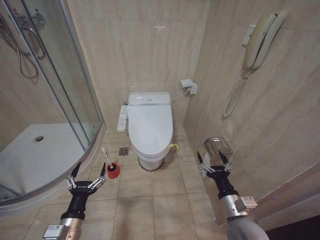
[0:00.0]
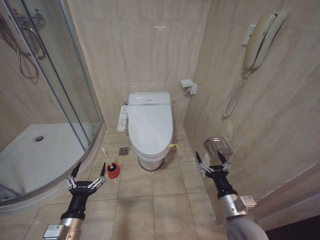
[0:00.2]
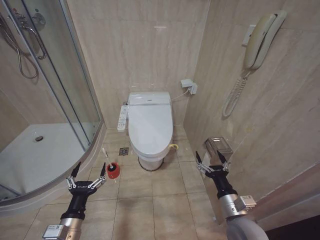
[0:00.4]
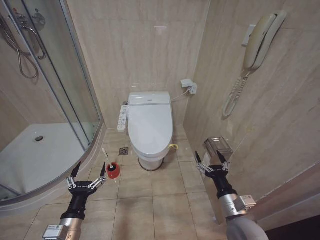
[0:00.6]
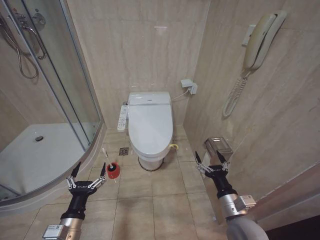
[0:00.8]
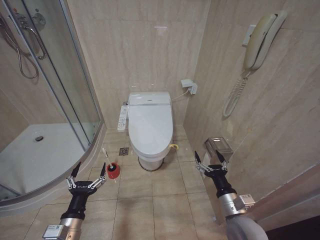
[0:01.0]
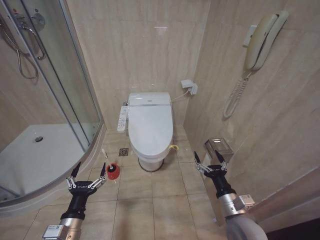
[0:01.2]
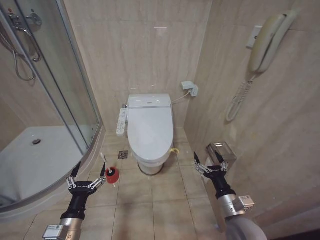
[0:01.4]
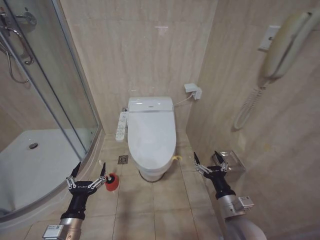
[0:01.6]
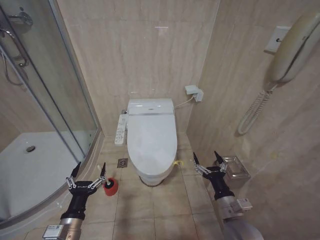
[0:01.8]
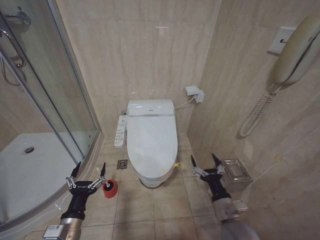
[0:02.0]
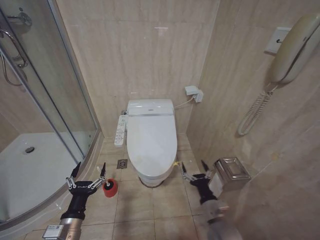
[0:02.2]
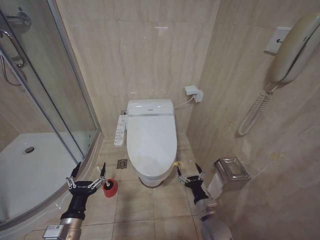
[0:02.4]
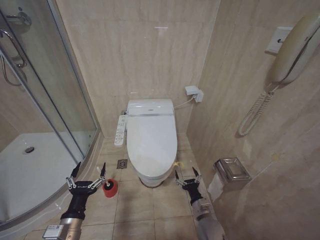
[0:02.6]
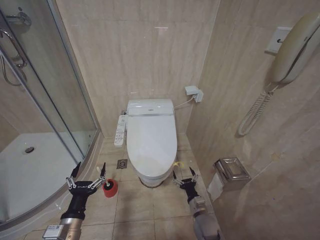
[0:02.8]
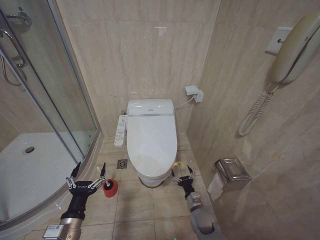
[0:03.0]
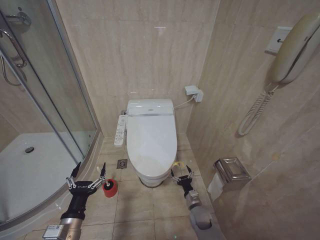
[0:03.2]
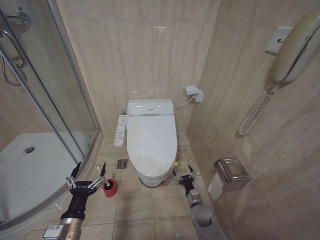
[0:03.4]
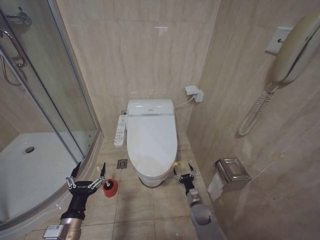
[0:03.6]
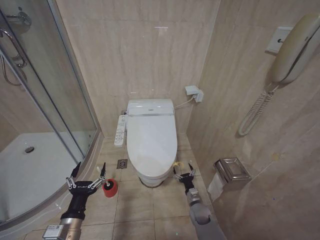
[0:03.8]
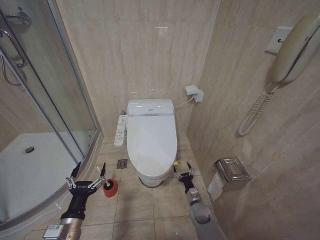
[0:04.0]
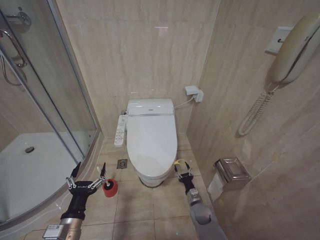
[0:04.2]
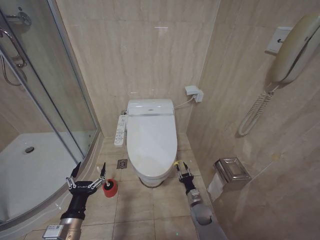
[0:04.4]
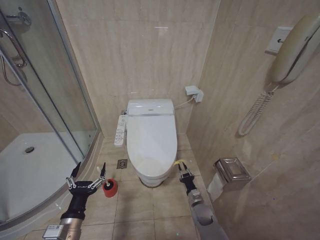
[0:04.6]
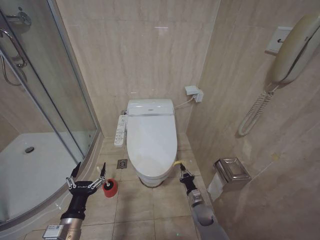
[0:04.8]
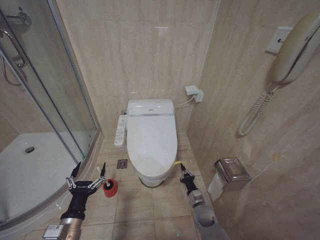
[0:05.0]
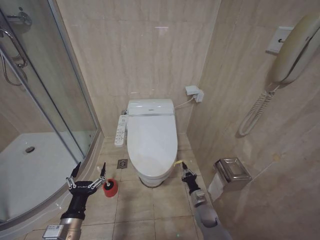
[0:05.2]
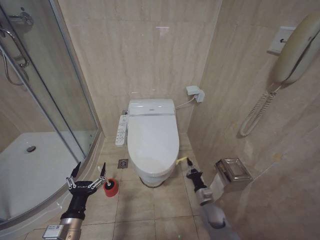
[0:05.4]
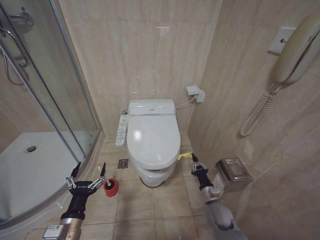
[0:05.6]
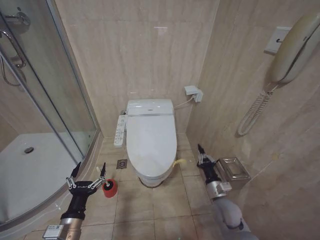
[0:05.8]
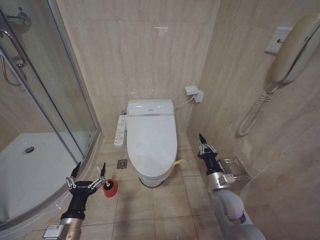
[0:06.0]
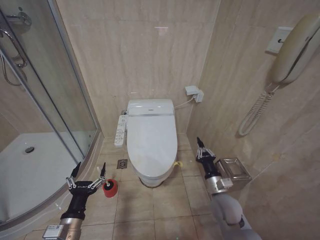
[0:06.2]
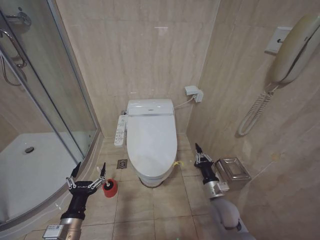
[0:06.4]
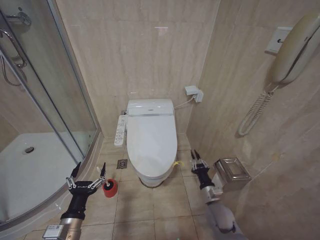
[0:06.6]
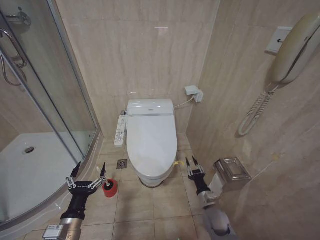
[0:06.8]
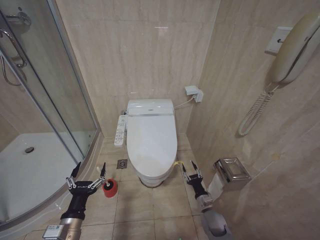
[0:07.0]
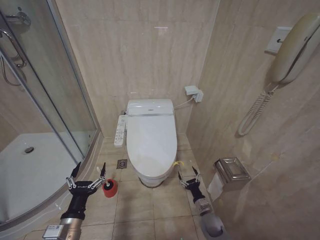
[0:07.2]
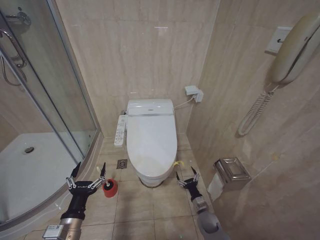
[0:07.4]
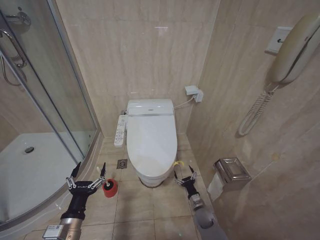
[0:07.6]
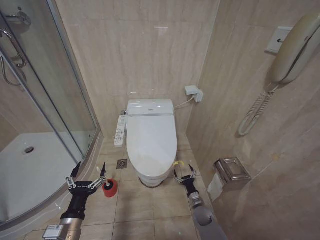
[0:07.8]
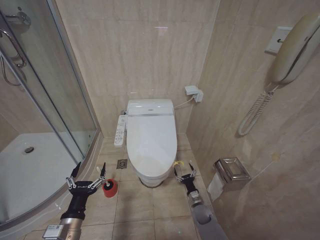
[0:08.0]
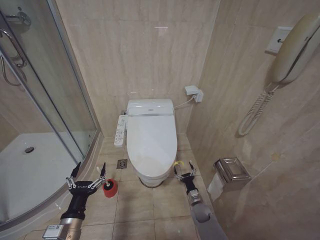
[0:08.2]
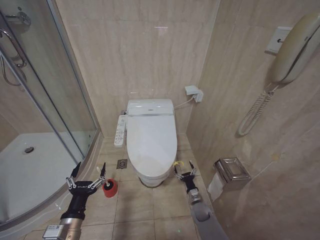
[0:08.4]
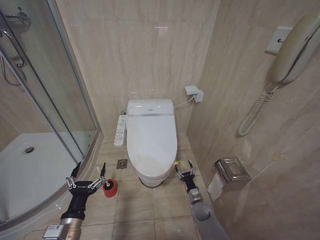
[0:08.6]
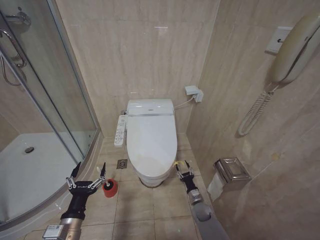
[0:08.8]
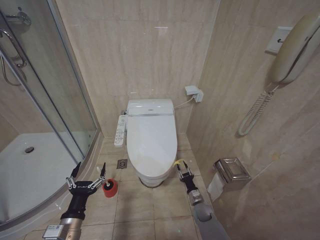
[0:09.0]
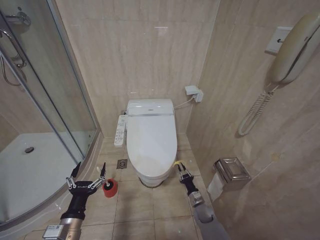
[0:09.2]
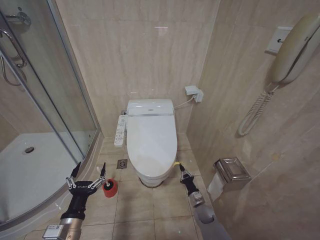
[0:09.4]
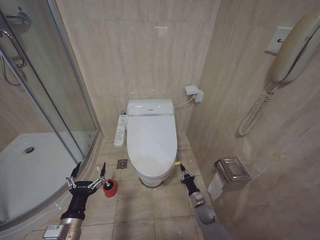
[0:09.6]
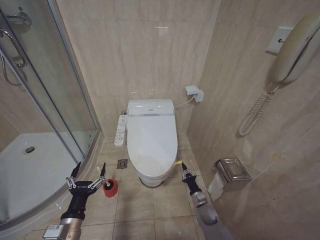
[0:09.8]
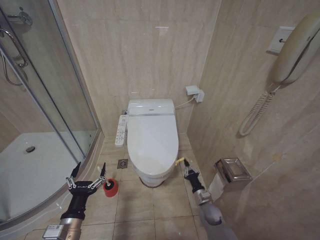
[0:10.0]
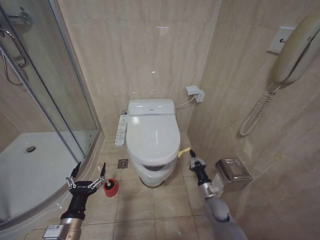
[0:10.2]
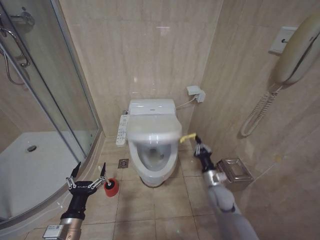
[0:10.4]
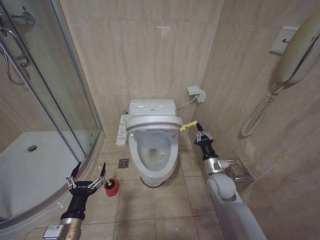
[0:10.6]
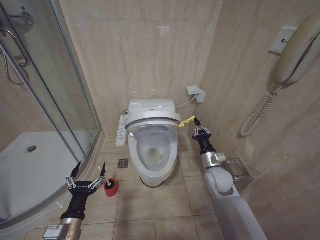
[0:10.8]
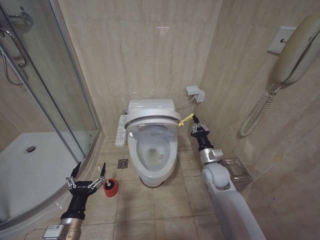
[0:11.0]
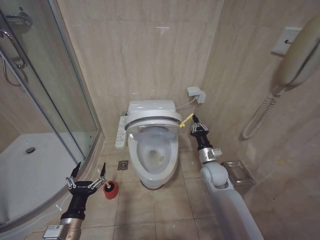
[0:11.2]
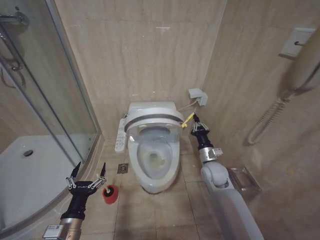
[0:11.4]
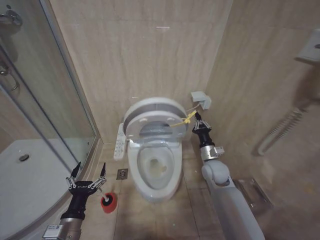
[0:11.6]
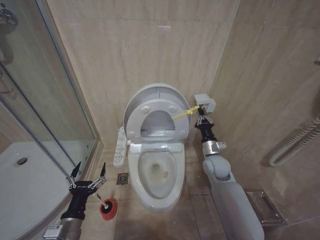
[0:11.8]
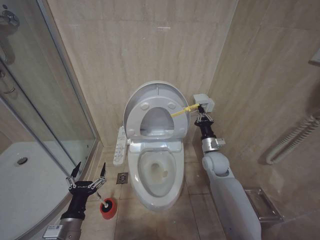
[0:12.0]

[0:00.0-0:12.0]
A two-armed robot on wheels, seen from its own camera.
Task of the whole recording: Open the toilet lid, clean the toilet bowl with a toilet brush, close the toilet lid, and flush.
0:01.6 to 0:03.0: The right gripper shifts some 20 cm downward and forward.
0:03.0 to 0:04.4: The right gripper ends up approximately 5 cm from where it was.
0:04.4 to 0:06.0: The right gripper shifts about 20 cm upward, and closes.
0:06.0 to 0:07.6: The right gripper is displaced downward by approximately 20 cm, and opens its fingers.
0:09.0 to 0:10.4: The right gripper is displaced upward by approximately 15 cm, and closes up.
0:10.4 to 0:12.0: The right gripper travels upward and forward by roughly 20 cm.

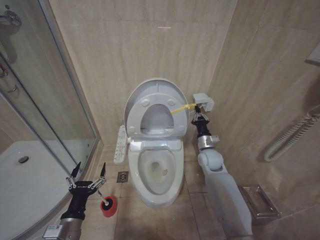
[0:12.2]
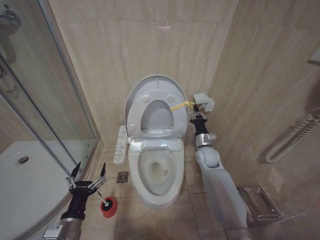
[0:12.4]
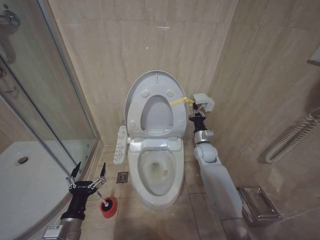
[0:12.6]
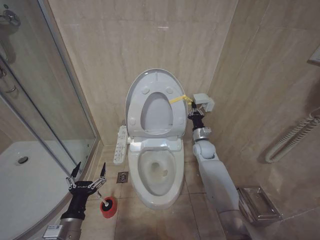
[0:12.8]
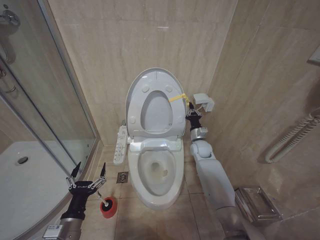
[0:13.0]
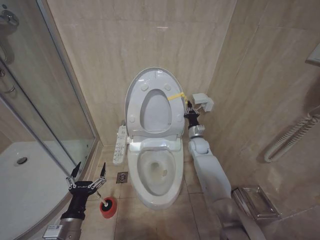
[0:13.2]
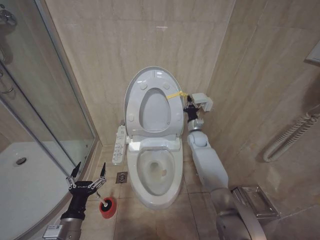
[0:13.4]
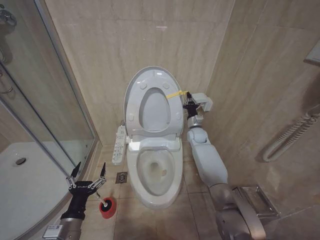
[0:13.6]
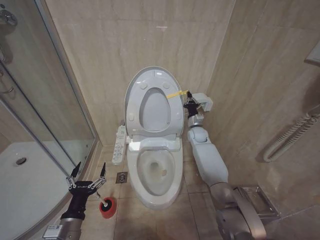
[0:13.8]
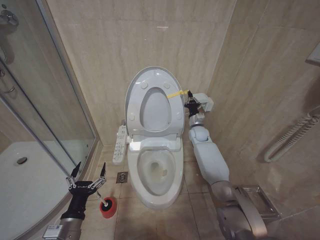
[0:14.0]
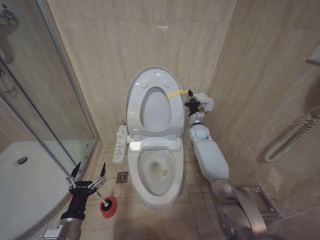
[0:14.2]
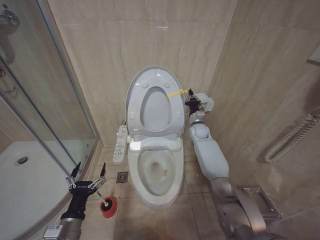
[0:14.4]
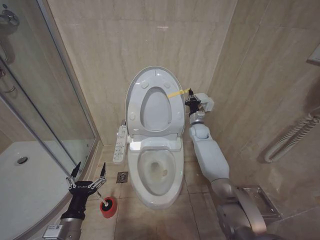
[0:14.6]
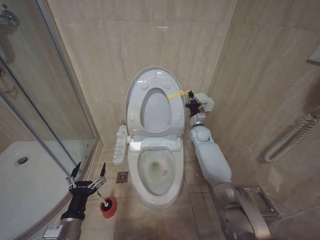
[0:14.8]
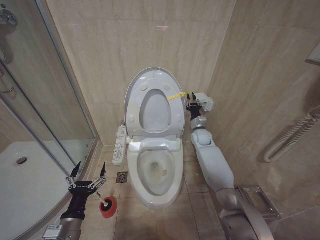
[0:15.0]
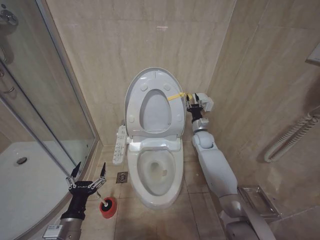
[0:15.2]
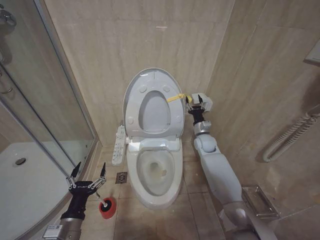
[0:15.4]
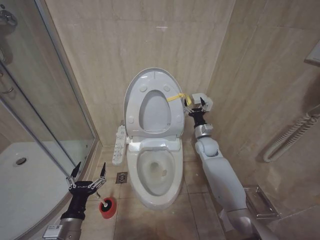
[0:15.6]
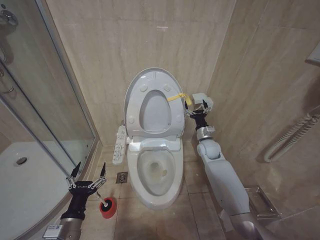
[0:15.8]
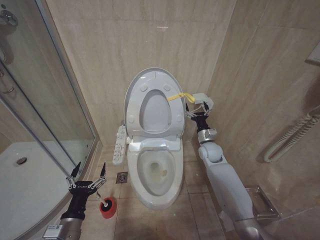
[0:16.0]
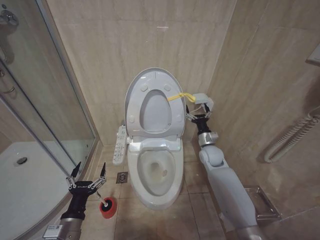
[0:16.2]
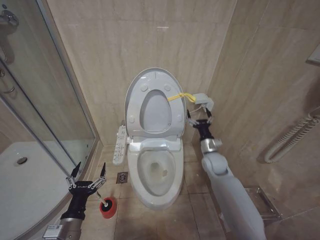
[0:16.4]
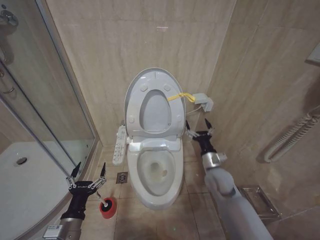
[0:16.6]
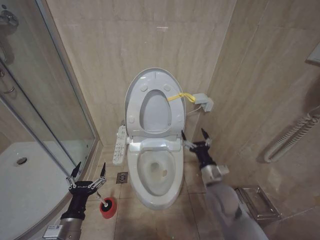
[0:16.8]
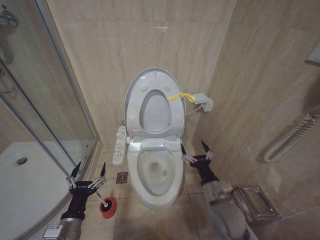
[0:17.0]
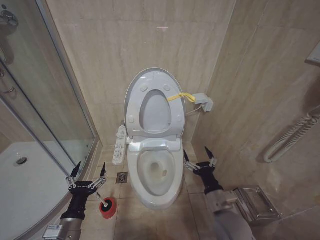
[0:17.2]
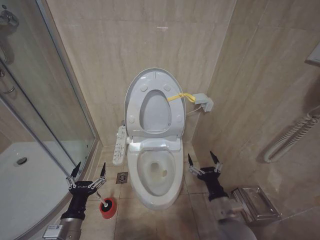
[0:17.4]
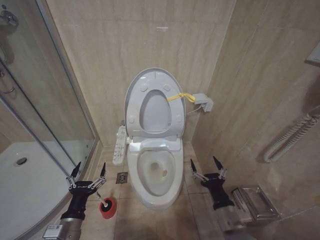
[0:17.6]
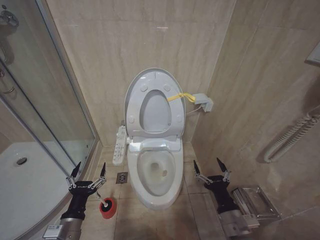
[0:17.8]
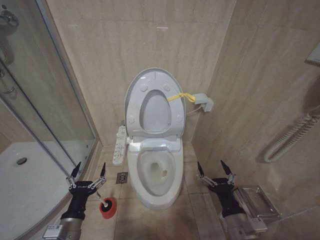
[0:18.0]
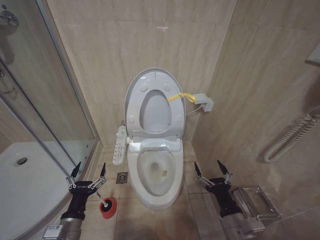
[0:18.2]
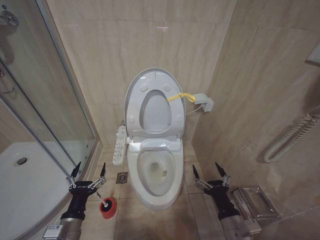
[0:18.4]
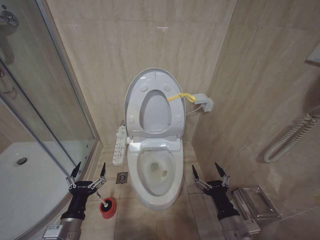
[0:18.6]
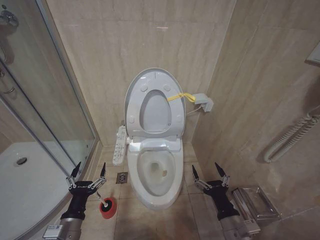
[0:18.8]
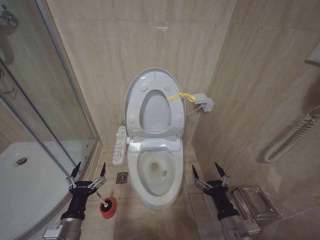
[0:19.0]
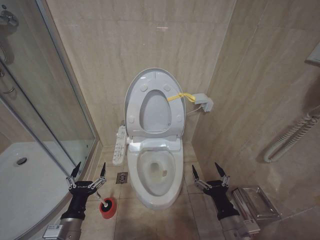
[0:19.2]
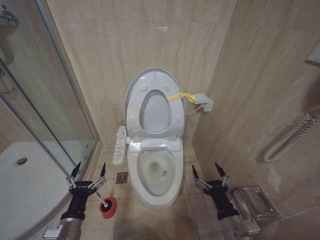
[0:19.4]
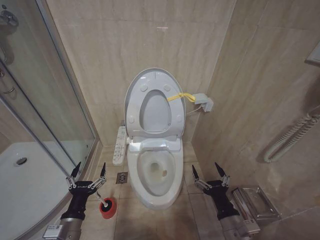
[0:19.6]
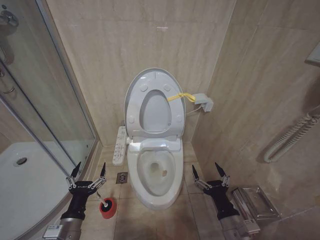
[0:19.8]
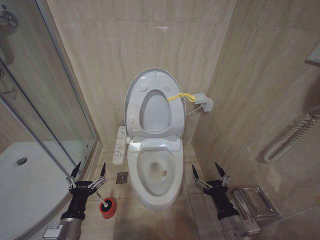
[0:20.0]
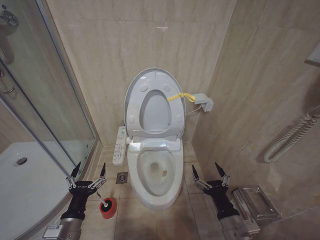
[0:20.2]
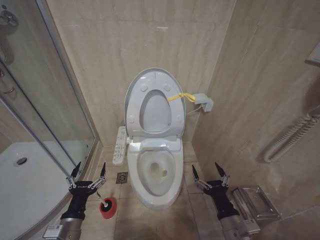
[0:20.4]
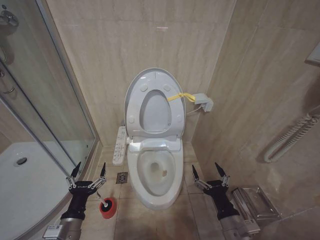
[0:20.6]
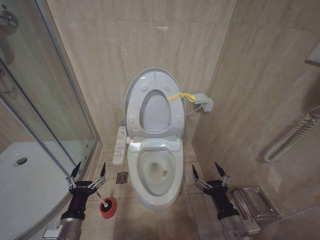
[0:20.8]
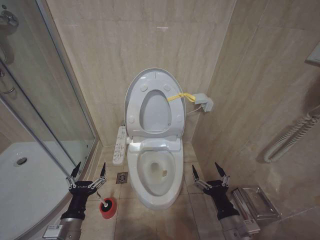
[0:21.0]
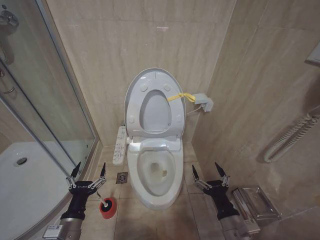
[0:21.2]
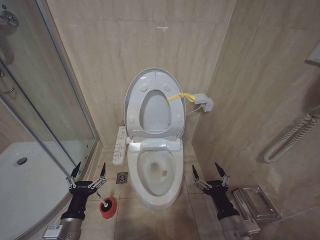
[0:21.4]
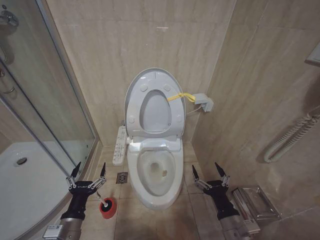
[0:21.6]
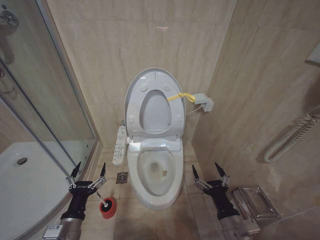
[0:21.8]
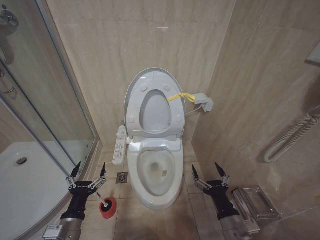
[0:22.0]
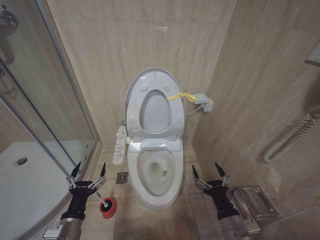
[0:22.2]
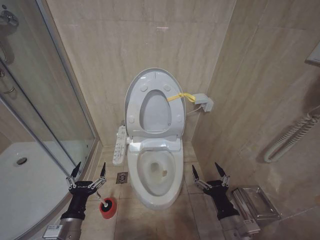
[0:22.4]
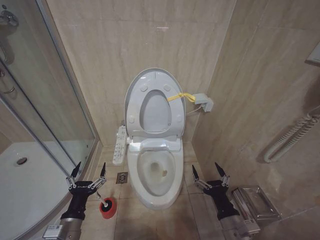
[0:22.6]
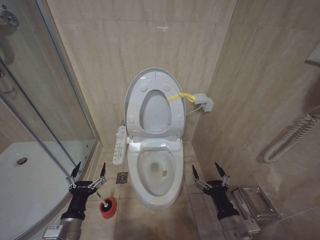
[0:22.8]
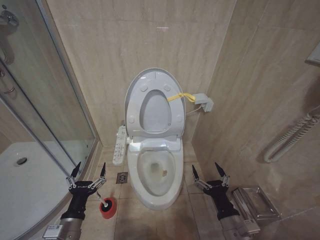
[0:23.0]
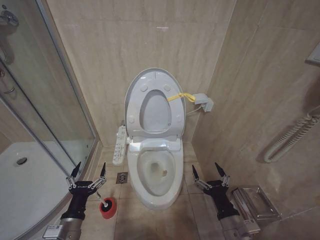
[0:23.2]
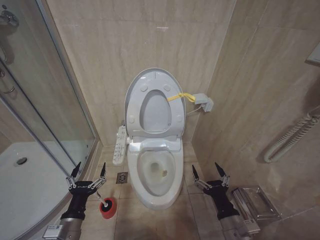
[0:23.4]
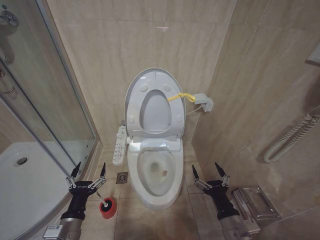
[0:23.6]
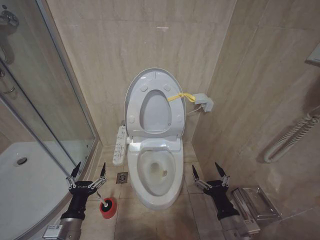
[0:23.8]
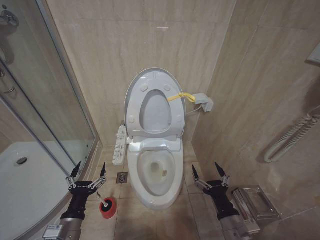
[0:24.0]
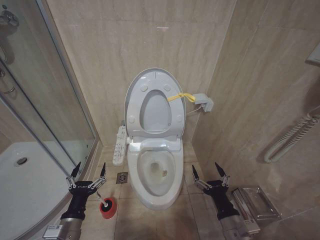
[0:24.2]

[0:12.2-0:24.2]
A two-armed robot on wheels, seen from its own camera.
Task of the whole recording: Open the toilet lid, clean the toilet bowl with a toilet brush, close the toilet lid, and flush.
0:12.2 to 0:13.8: The right gripper travels forward by about 15 cm.
0:13.8 to 0:15.2: The right gripper opens.
0:15.2 to 0:16.6: The right gripper goes some 15 cm backward, and opens up.
0:16.6 to 0:18.2: The right gripper travels backward by some 25 cm.
0:18.2 to 0:24.2: The two grippers keep their place.
